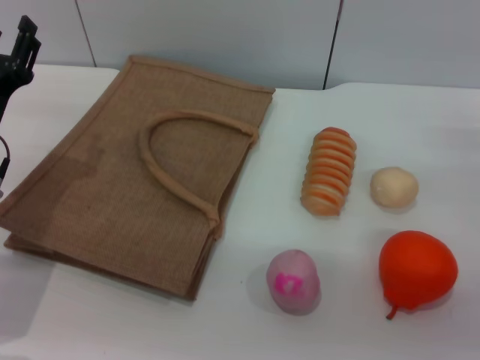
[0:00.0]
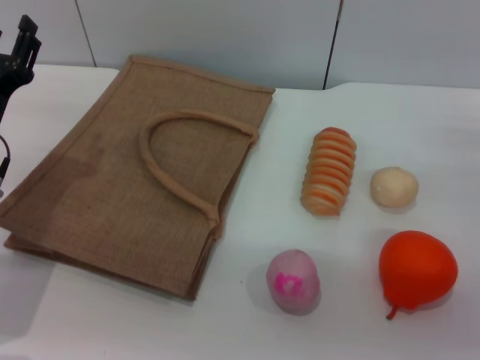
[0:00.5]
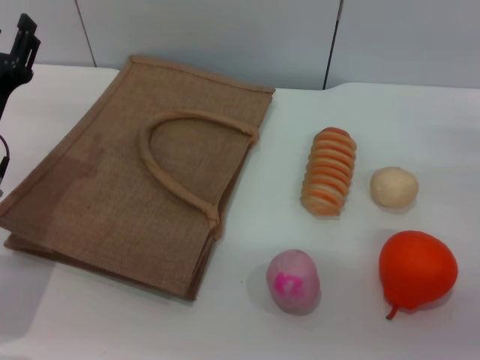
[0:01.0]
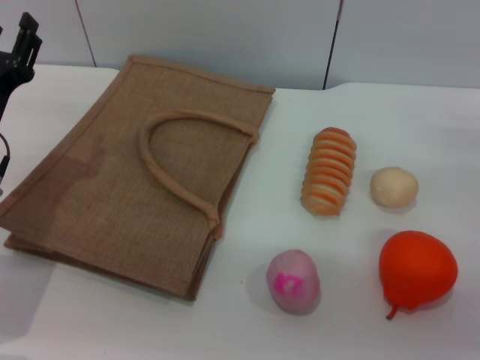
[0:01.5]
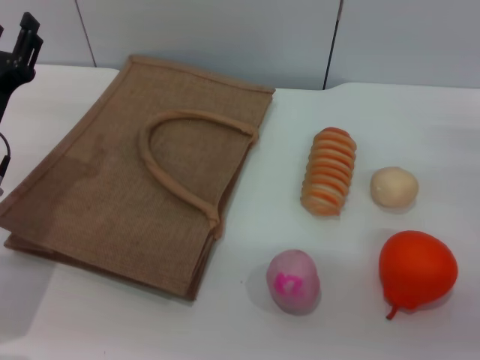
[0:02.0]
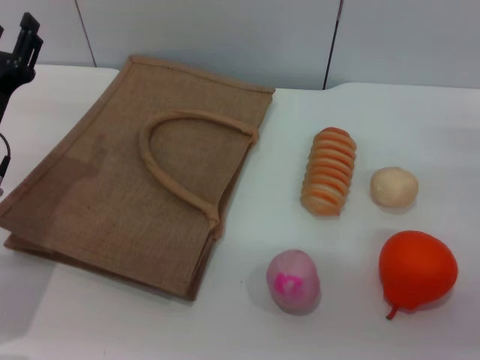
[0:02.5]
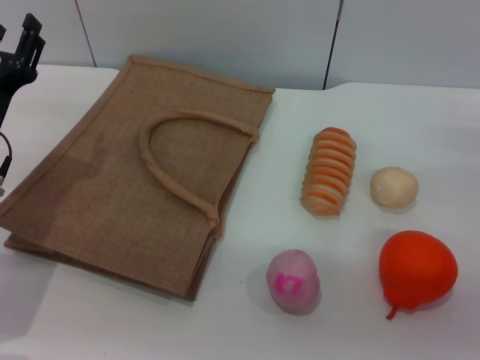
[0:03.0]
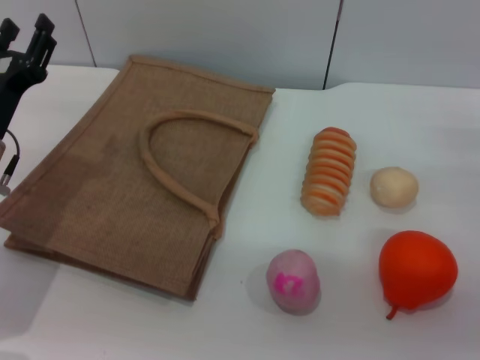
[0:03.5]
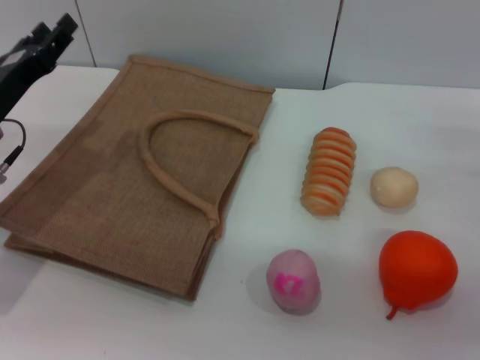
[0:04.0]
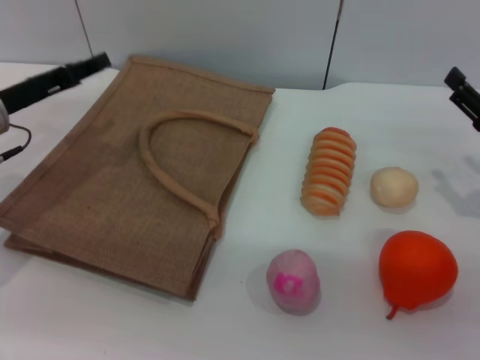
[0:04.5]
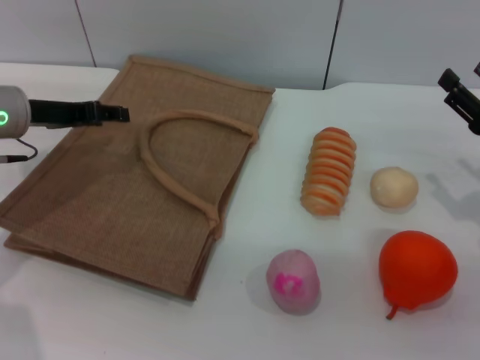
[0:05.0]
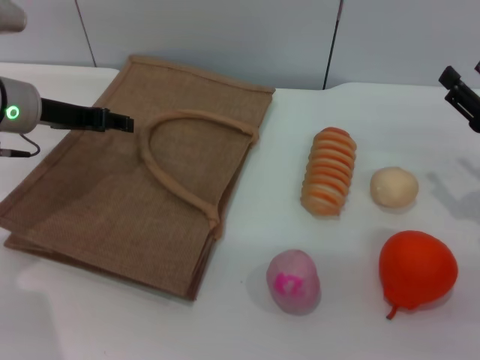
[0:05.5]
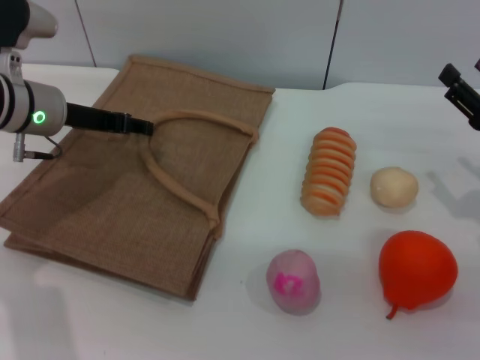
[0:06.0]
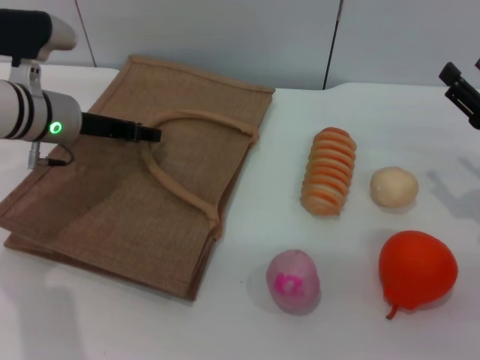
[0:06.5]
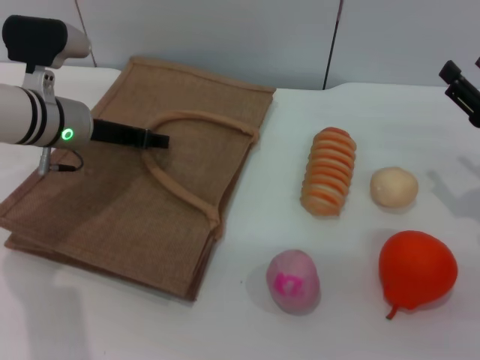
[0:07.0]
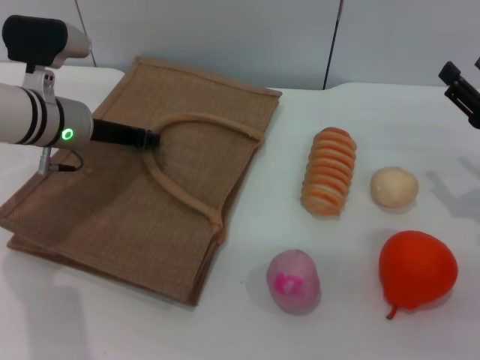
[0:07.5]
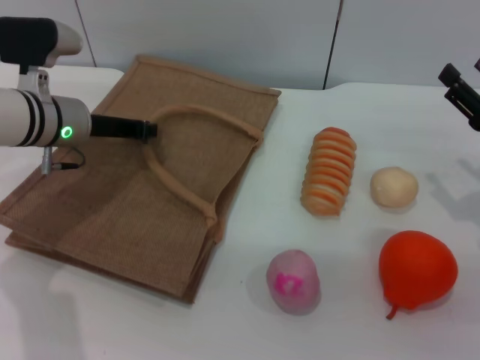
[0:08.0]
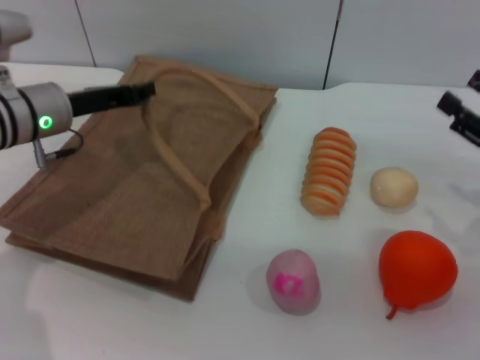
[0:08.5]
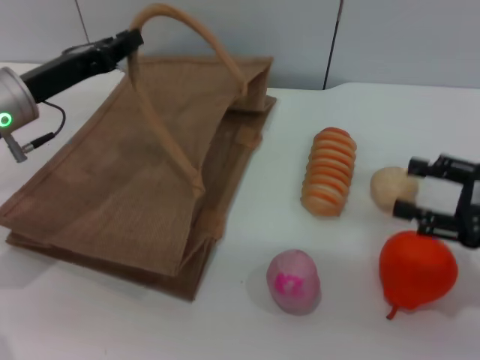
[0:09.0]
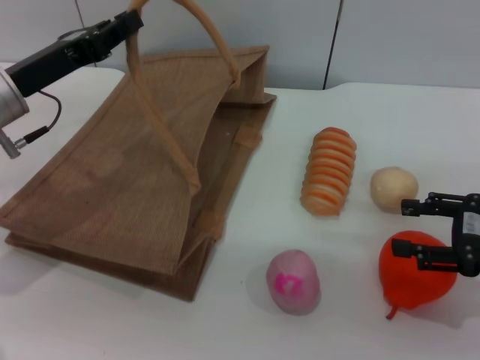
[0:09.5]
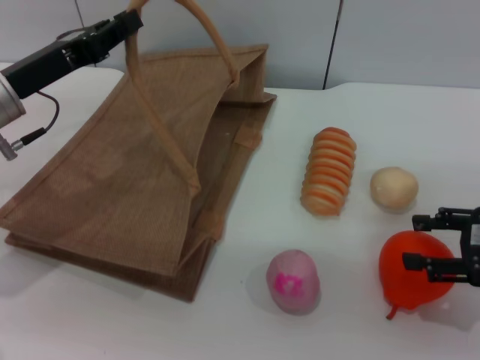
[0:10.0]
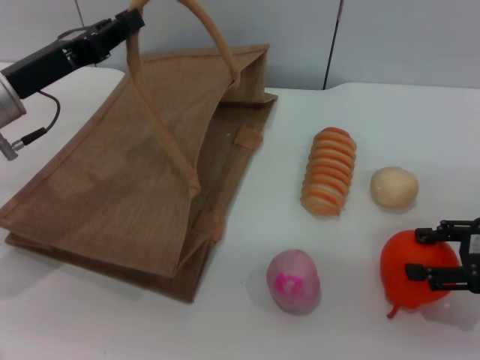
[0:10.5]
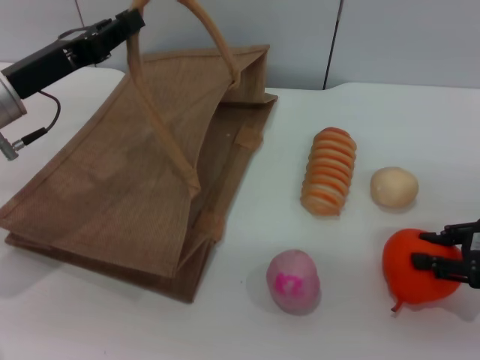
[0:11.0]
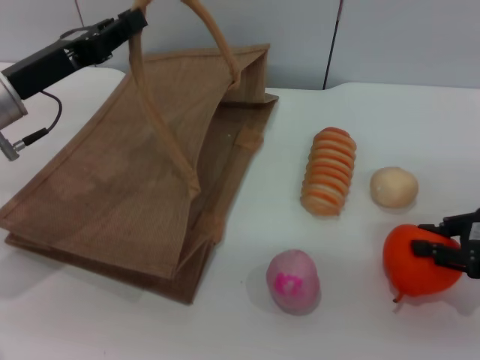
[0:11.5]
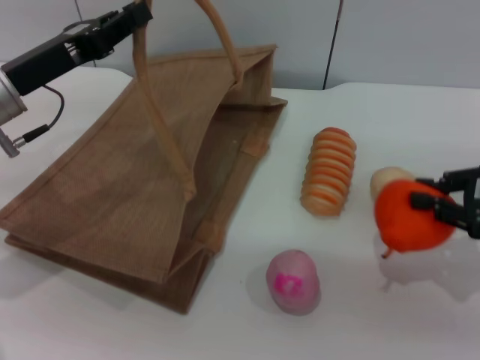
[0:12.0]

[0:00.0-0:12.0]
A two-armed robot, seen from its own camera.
Task of the whole recording: pick up the orange from the table and place it in the brown handbag.
Step, 0:00.0 to 0:08.0: Lift the woven bag with the left gripper to open it.
0:00.0 to 0:02.0: Both grippers stay about where they are.
0:04.0 to 0:06.0: The left gripper shifts about 5 cm forward.
0:06.0 to 0:08.0: The left gripper closes.
0:08.0 to 0:10.0: The left gripper heads backward, covering roughly 5 cm.
0:10.0 to 0:12.0: The right gripper closes.

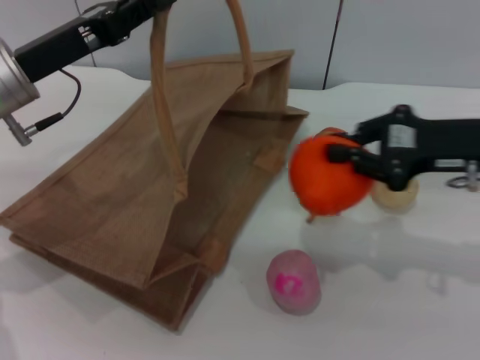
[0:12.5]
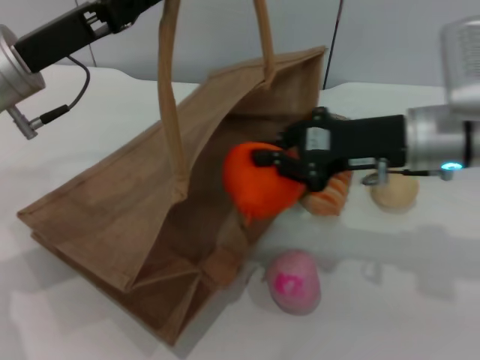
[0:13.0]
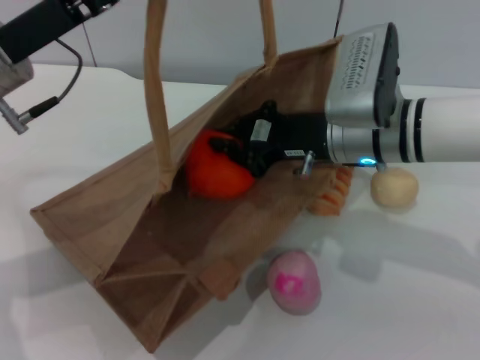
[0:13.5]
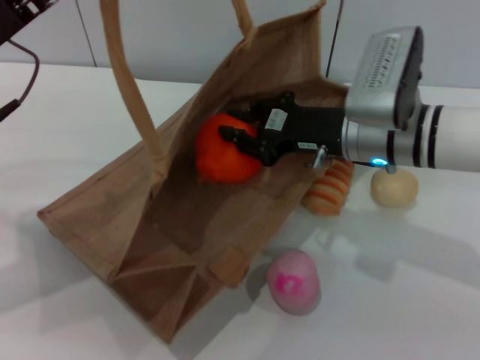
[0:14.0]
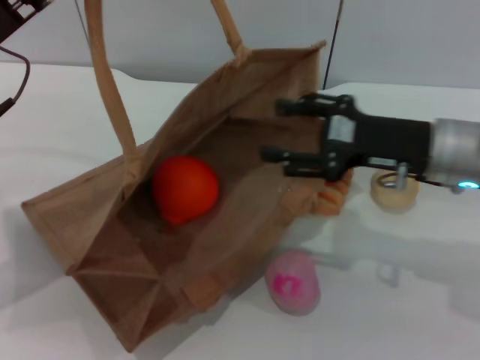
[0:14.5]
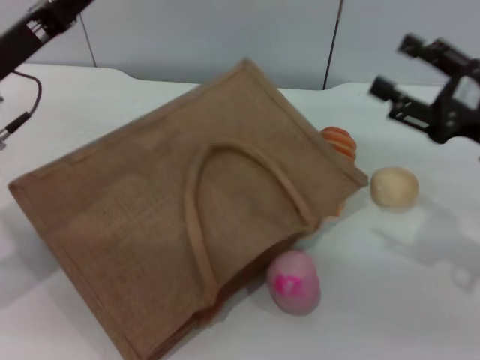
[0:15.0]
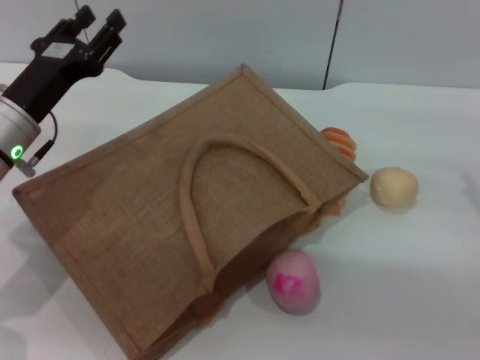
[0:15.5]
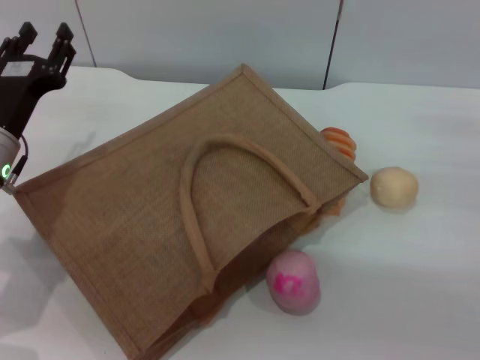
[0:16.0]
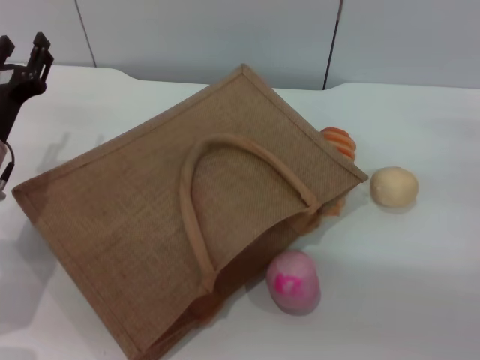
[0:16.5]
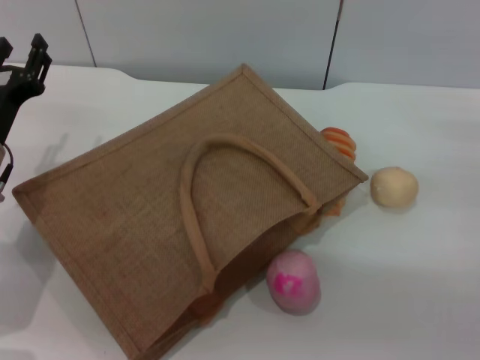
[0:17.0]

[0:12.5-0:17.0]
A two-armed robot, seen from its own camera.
Task of the whole recording: pick up the orange from the table and place it in the brown handbag.
Step, 0:12.5 to 0:14.5: Place the orange into the woven bag with the right gripper.
Step, 0:15.0 to 0:15.5: Lower the woven bag with the left gripper to close it.
0:12.5 to 0:14.5: The right gripper opens up.
0:14.5 to 0:17.0: The left gripper heads downward, covering about 10 cm, and opens up; the right gripper shifts about 15 cm to the right and downward, and opens up.

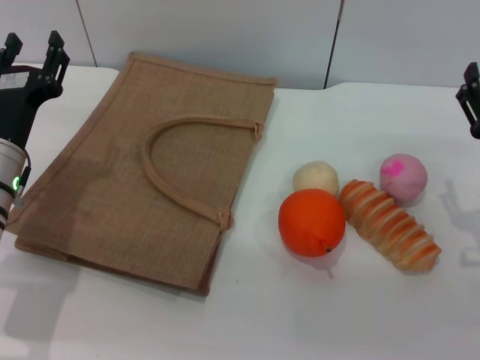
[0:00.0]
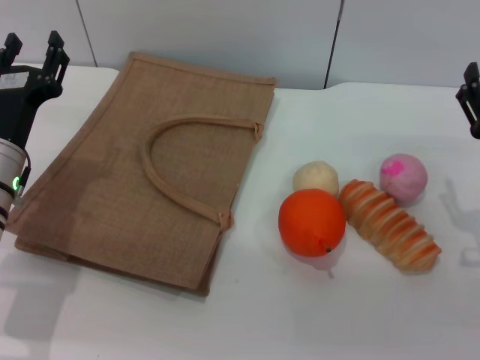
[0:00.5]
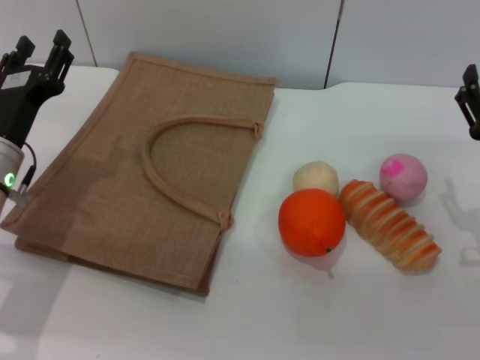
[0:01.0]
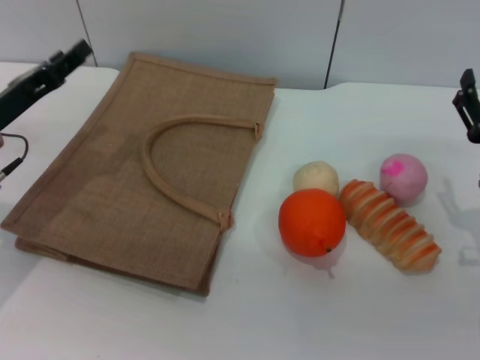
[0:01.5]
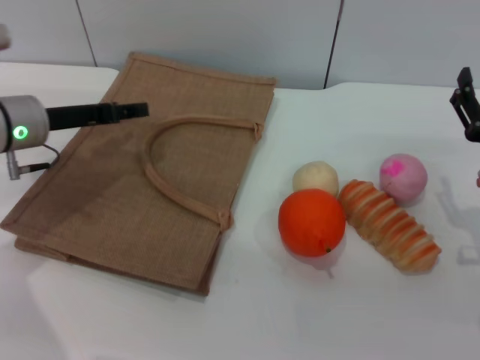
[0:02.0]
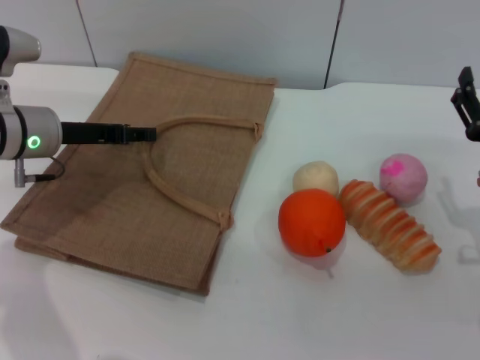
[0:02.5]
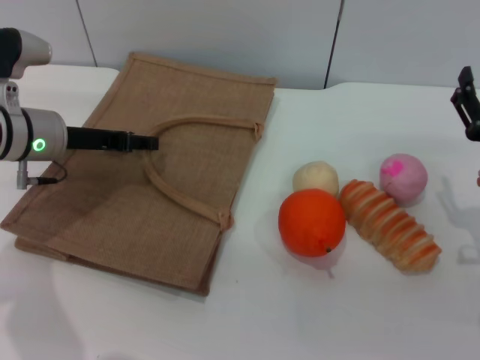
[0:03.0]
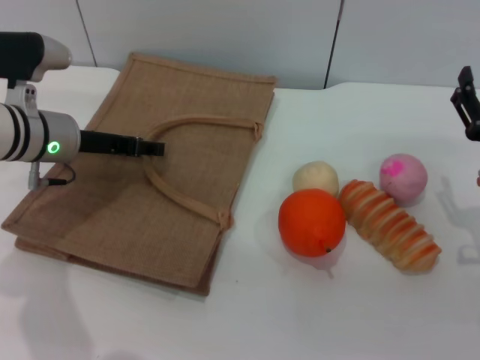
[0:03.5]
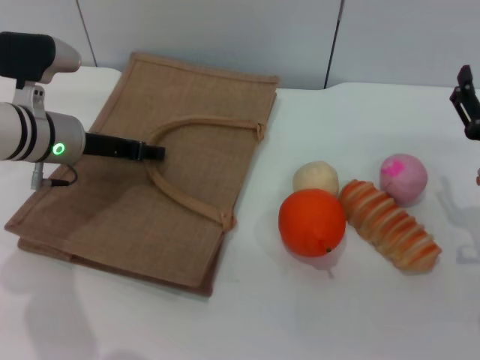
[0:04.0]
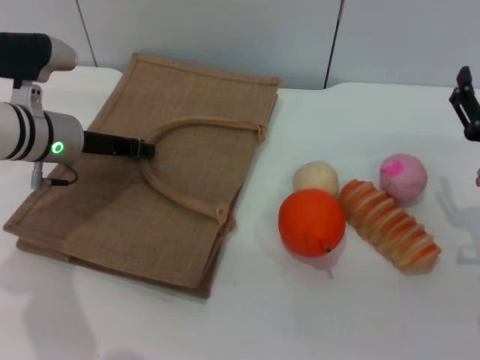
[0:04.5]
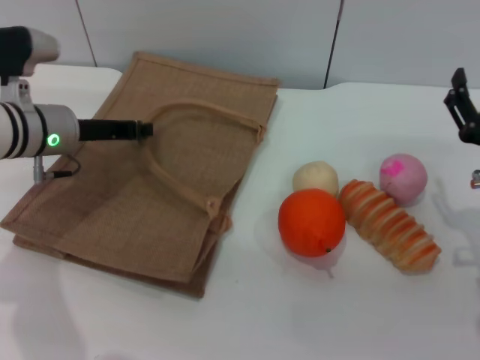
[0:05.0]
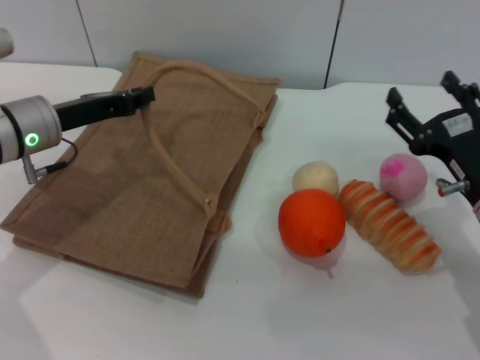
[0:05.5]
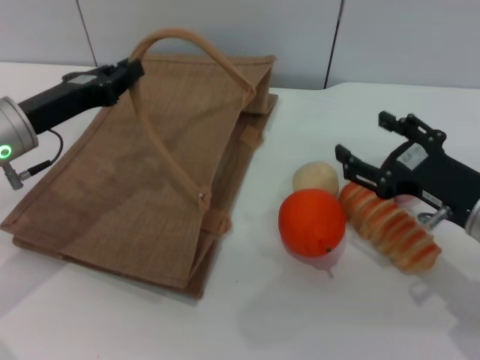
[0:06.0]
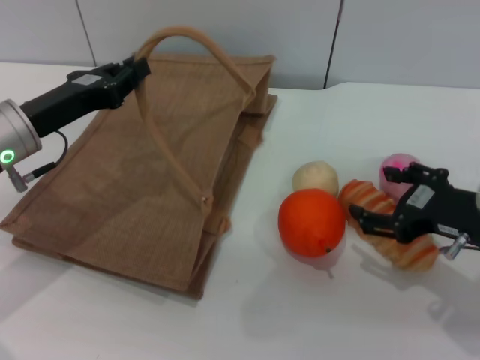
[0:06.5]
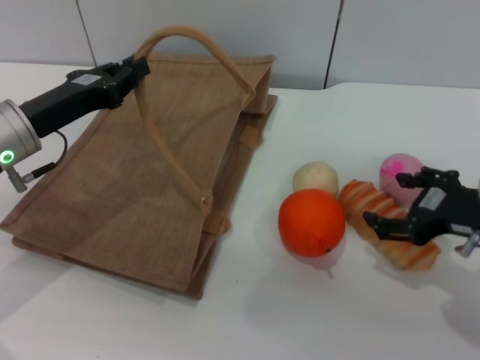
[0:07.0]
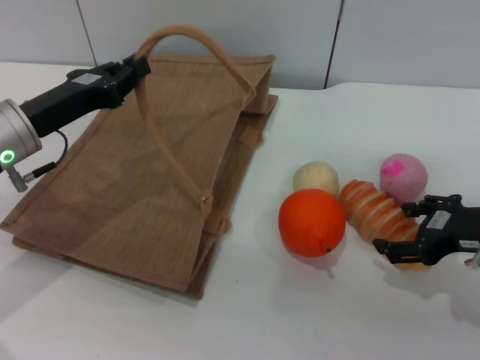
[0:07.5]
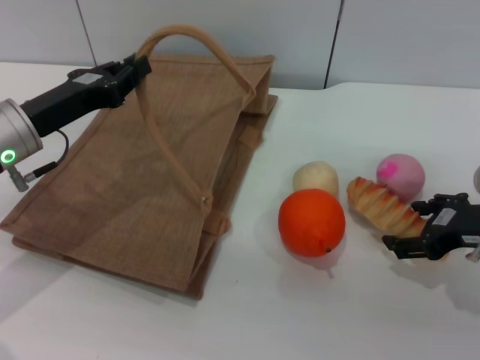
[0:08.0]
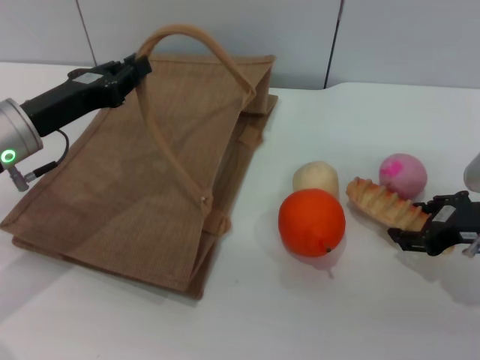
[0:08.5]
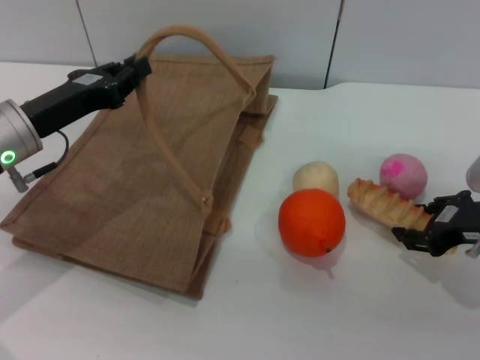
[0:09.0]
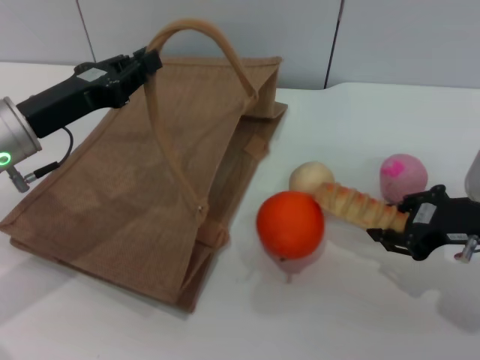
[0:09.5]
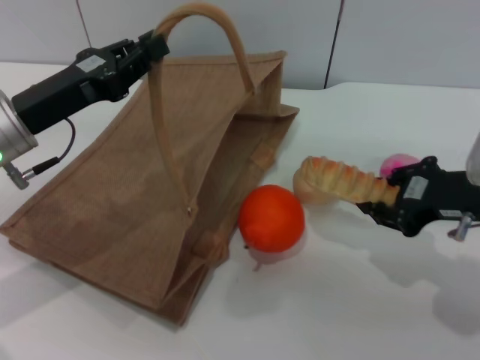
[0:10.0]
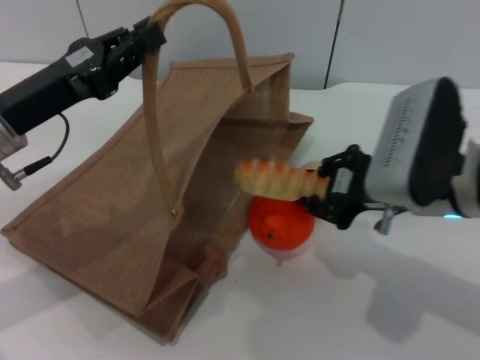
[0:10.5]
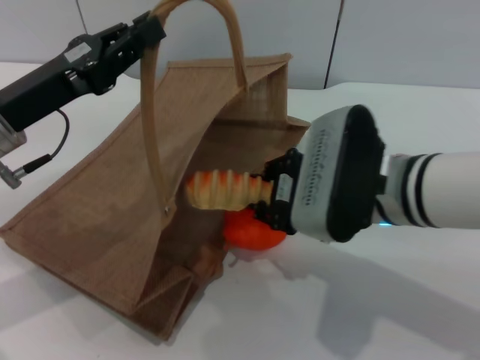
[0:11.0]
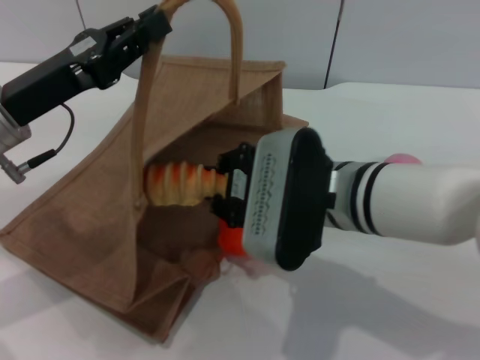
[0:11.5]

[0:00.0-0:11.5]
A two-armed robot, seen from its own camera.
Task of the whole recording: pick up the bread from the table and place it in the brown handbag.
Step, 0:00.0 to 0:04.5: Lift the woven bag with the left gripper to open it.
Step, 0:05.0 to 0:09.5: Pick up the bread with the right gripper.
0:00.0 to 0:02.0: The left gripper shifts about 5 cm forward.
0:02.0 to 0:04.0: The grippers move only a little.
0:04.0 to 0:06.0: The left gripper shifts about 5 cm backward, and closes. The right gripper shifts by some 5 cm.
0:07.5 to 0:09.5: The right gripper closes up.
0:09.5 to 0:11.5: The right gripper heads to the left, covering approximately 20 cm.
